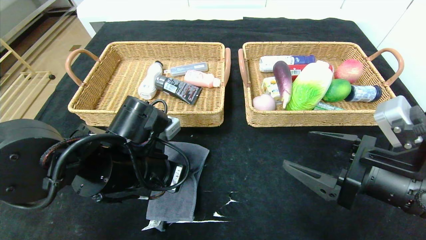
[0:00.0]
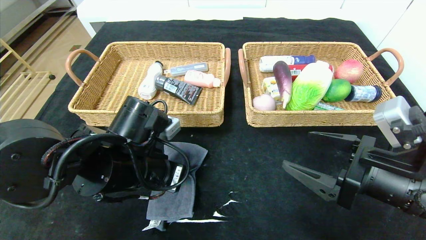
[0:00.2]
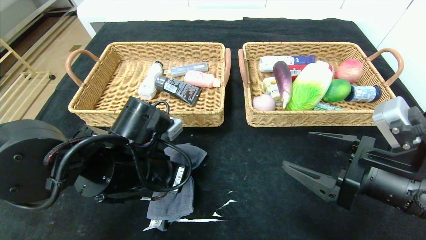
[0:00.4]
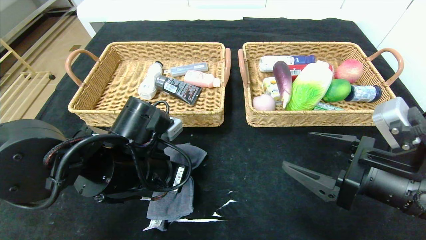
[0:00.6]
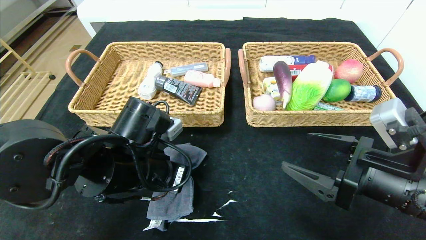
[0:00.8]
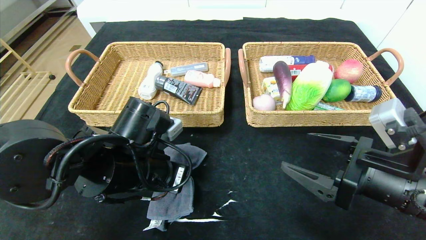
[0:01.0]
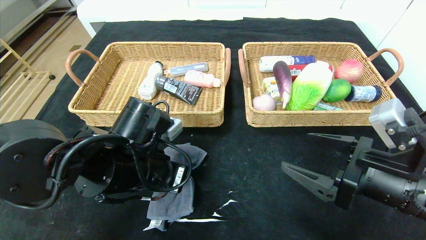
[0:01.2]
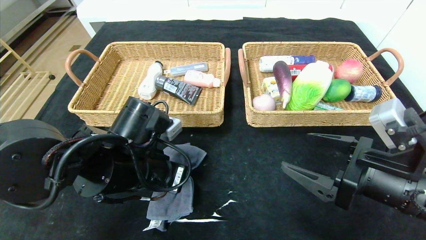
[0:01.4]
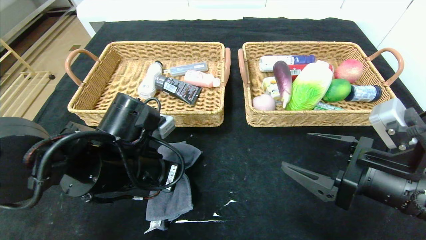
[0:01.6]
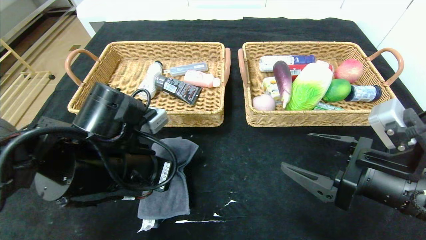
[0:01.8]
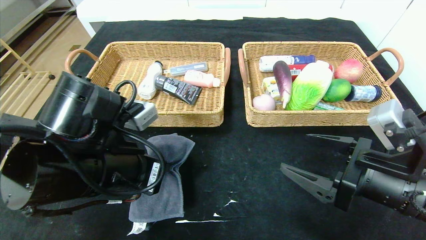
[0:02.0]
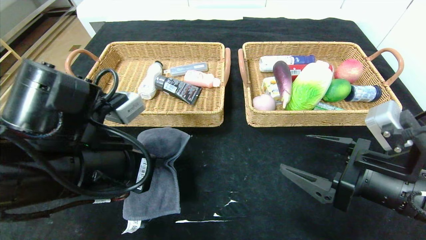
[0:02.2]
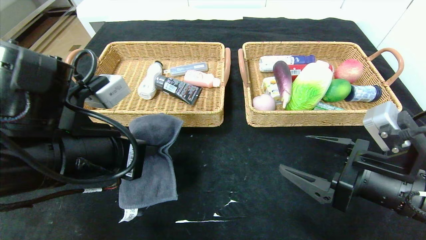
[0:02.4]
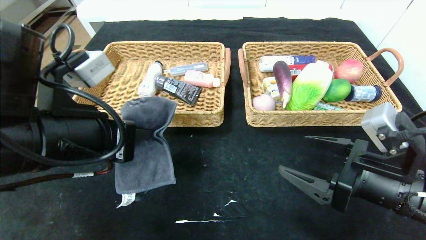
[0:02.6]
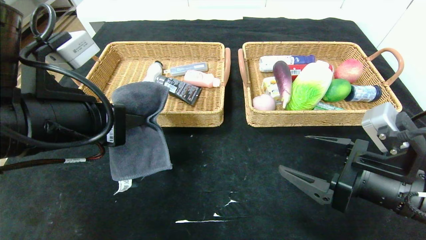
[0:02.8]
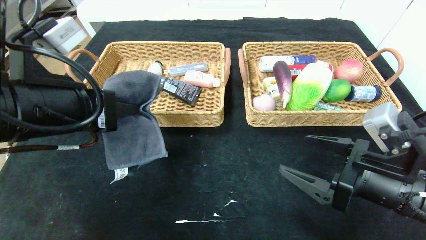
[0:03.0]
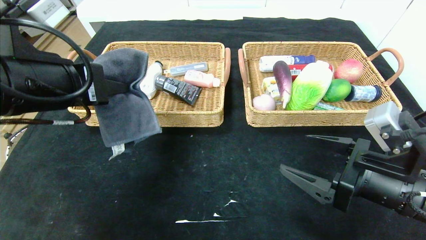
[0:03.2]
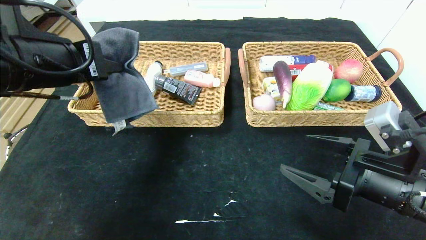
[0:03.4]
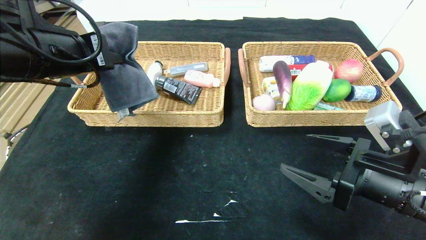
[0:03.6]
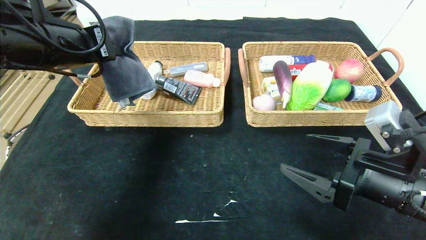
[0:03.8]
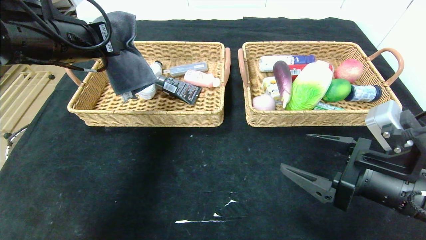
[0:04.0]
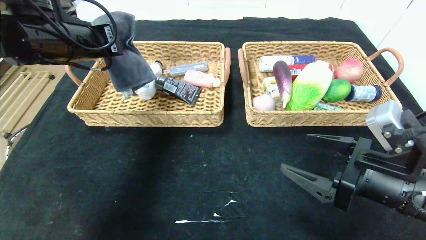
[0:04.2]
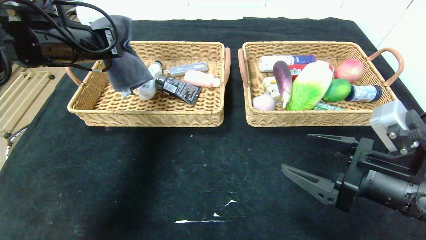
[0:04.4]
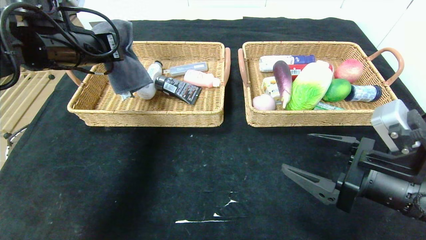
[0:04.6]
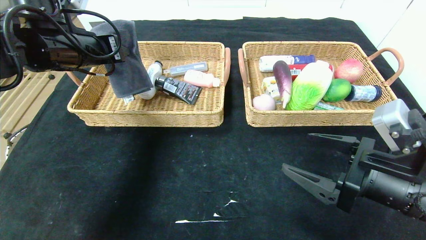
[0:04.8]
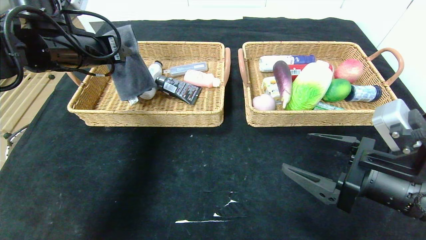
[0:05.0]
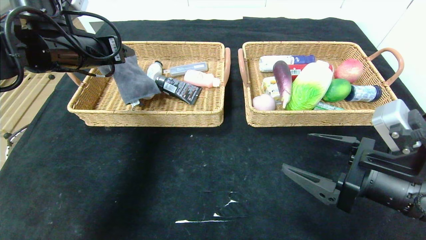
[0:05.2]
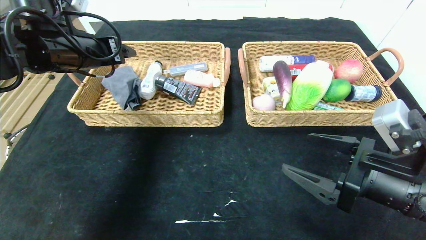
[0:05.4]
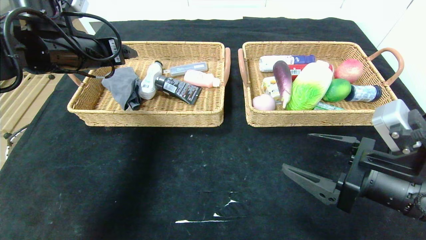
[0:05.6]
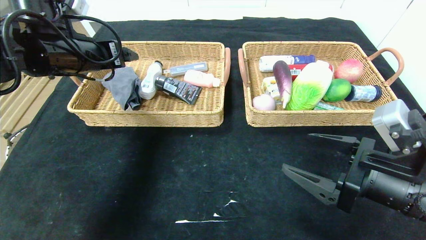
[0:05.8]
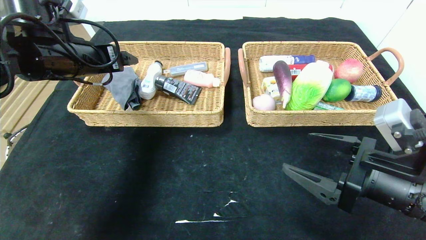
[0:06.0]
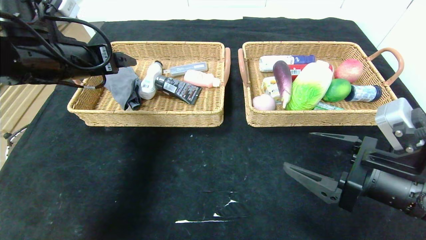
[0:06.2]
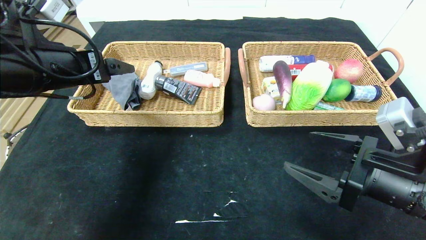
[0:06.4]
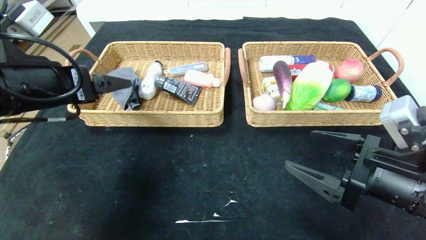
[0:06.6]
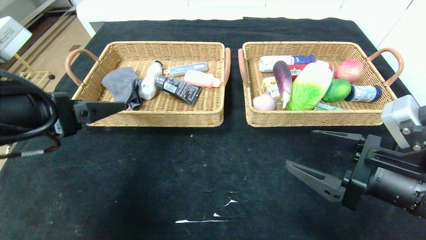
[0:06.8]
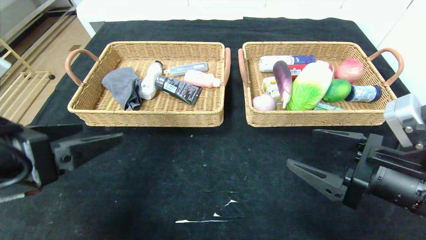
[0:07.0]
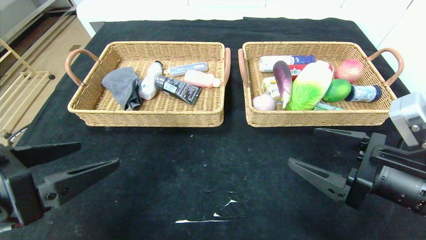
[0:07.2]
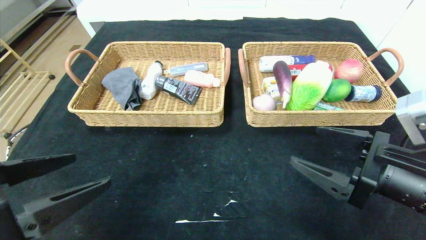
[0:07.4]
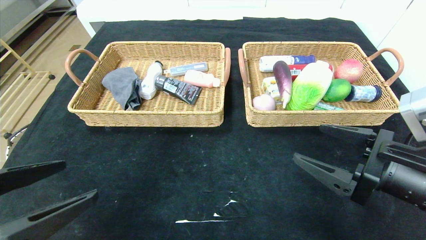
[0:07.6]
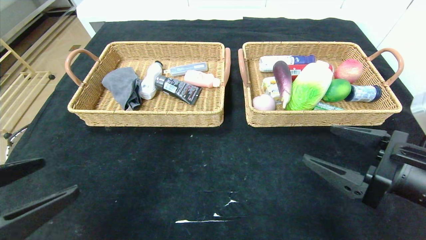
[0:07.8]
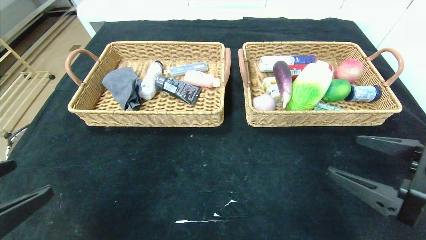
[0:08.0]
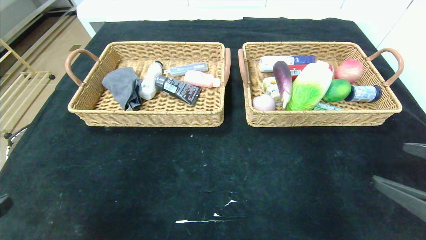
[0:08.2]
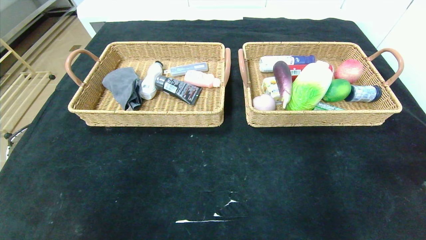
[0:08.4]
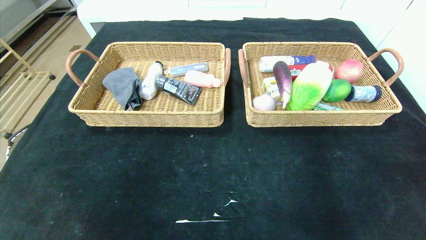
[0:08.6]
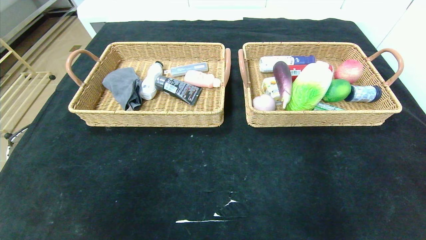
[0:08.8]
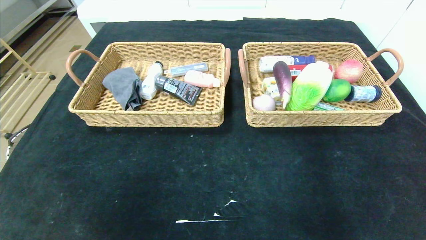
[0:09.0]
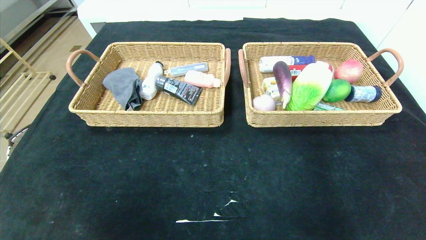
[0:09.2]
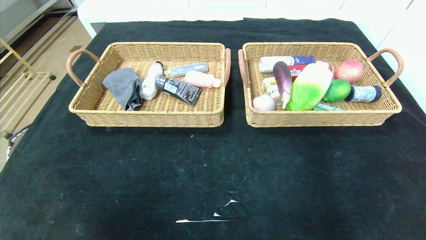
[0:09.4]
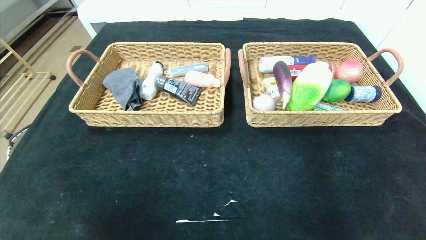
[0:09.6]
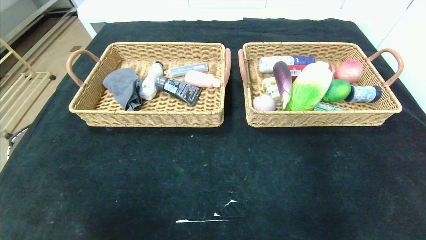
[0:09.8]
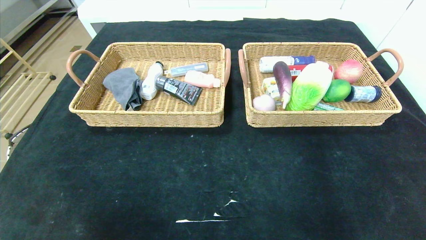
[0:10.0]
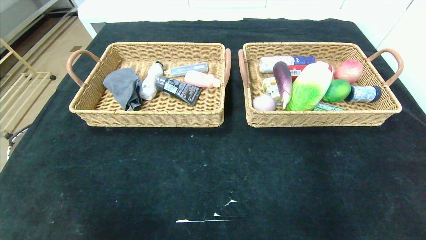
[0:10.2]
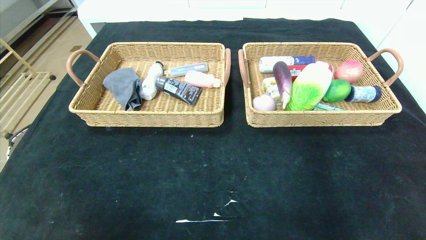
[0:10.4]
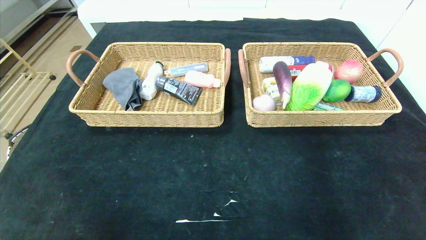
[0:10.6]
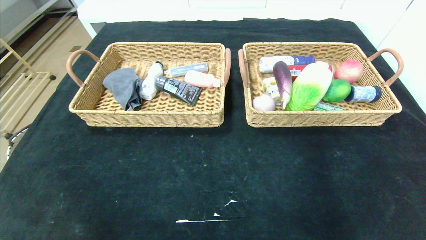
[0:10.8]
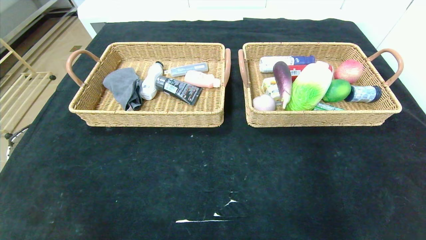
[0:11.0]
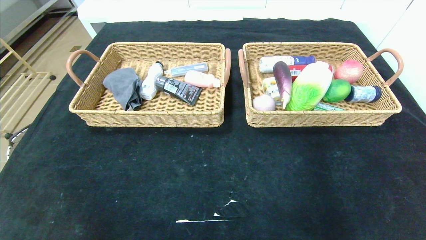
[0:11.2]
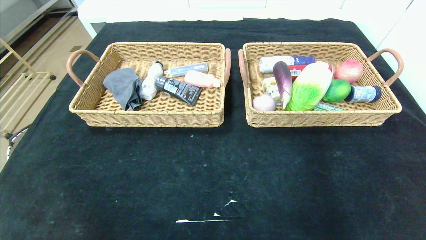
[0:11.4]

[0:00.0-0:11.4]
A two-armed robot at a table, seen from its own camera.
Step, 0:00.0 to 0:07.0: Pick up the gray towel and put it in the left basket.
0:00.0 to 0:01.4: The left gripper closes.
0:01.4 to 0:02.8: The left gripper is displaced upward, to the left and backward by roughly 15 cm.
0:02.8 to 0:04.2: The left gripper moves forward and upward, roughly 15 cm.
0:04.2 to 0:05.6: The left gripper opens.
0:05.6 to 0:07.2: The left gripper shifts roughly 25 cm backward.
0:07.2 to 0:08.6: The left gripper goes approximately 15 cm backward. The right gripper moves backward and to the right, approximately 20 cm.
0:08.6 to 0:10.0: The left gripper shifts roughly 10 cm downward.
